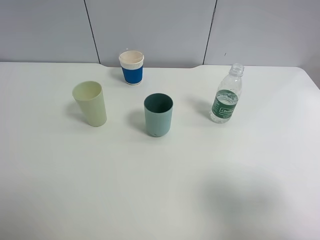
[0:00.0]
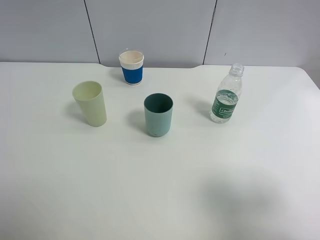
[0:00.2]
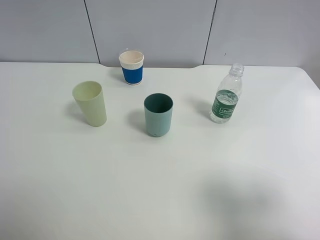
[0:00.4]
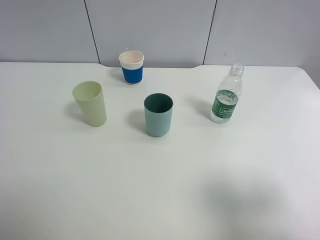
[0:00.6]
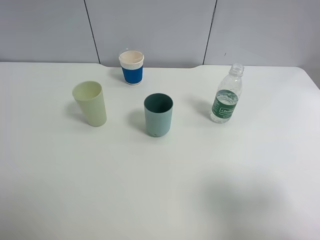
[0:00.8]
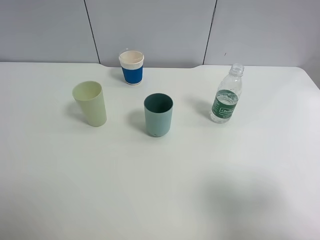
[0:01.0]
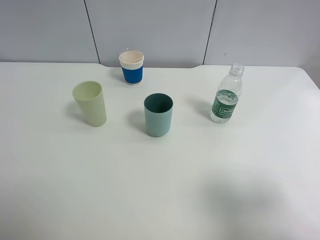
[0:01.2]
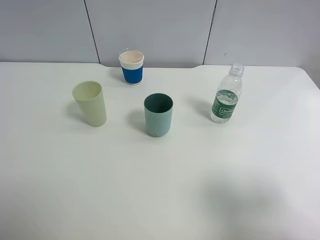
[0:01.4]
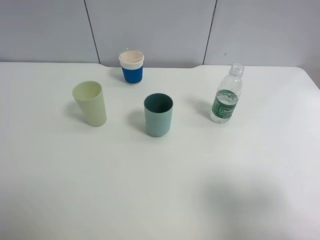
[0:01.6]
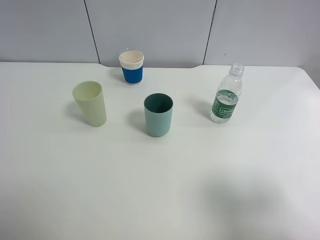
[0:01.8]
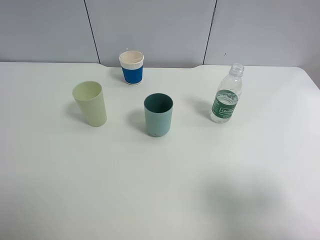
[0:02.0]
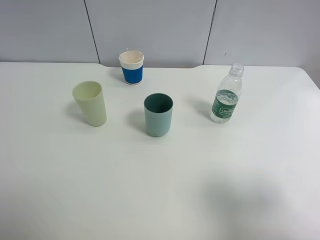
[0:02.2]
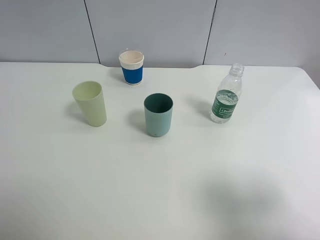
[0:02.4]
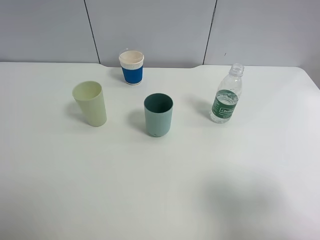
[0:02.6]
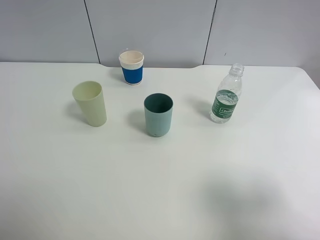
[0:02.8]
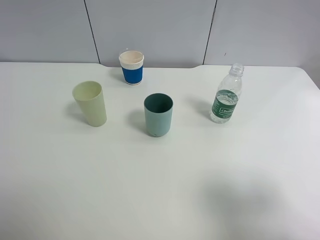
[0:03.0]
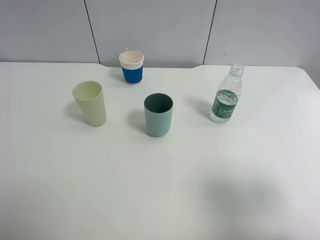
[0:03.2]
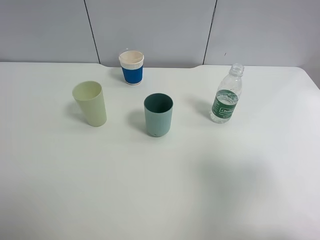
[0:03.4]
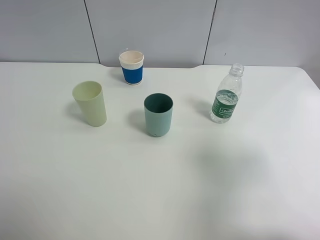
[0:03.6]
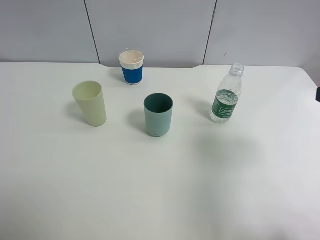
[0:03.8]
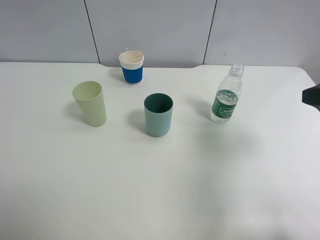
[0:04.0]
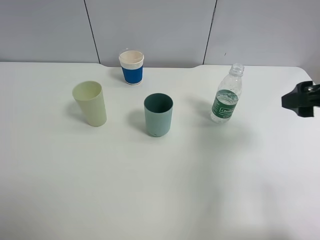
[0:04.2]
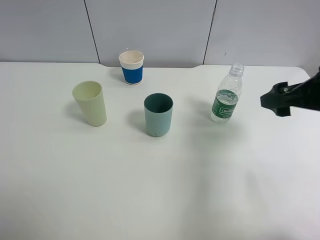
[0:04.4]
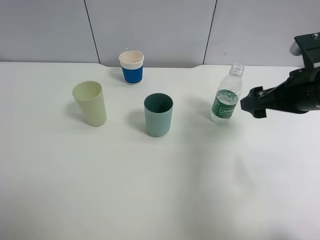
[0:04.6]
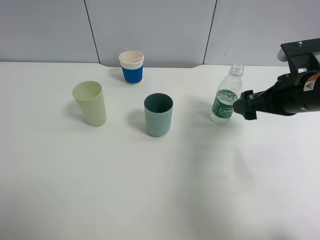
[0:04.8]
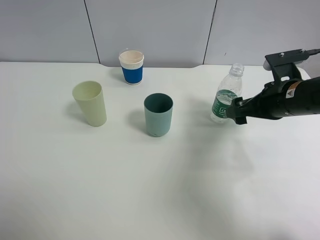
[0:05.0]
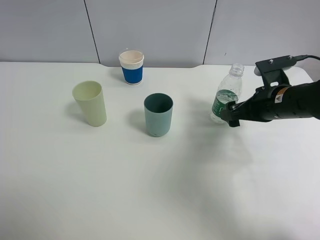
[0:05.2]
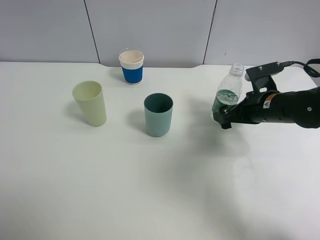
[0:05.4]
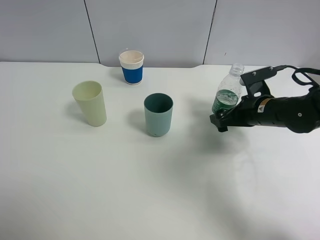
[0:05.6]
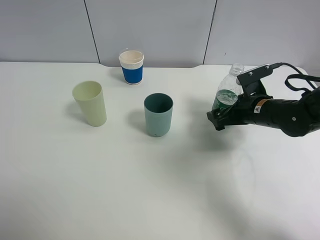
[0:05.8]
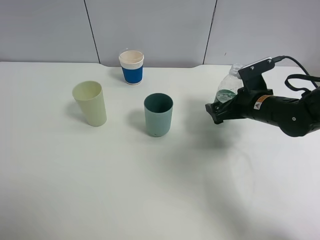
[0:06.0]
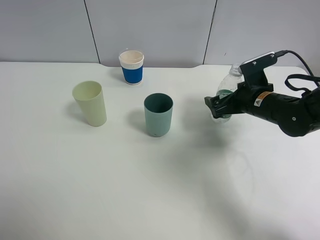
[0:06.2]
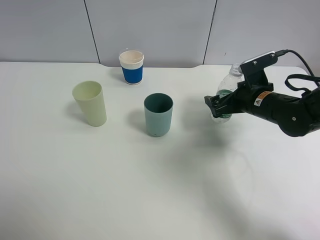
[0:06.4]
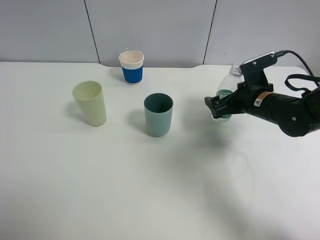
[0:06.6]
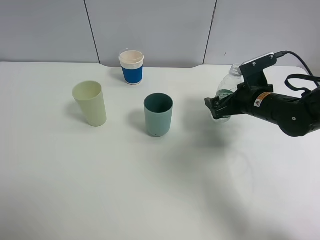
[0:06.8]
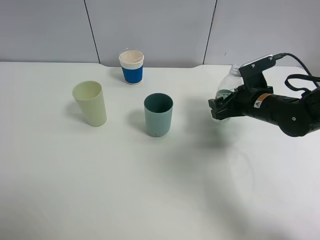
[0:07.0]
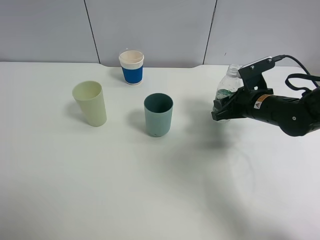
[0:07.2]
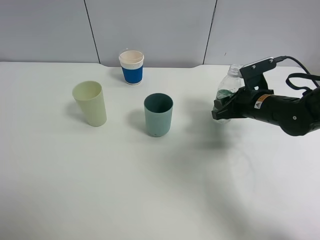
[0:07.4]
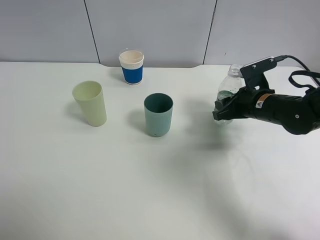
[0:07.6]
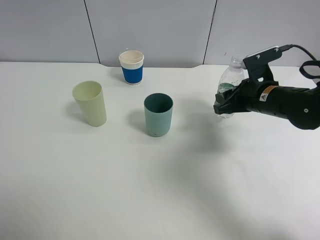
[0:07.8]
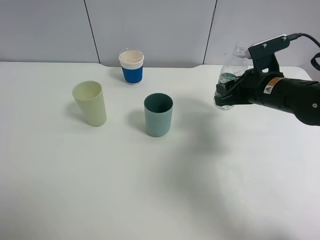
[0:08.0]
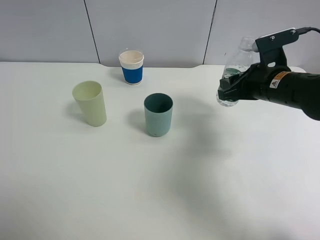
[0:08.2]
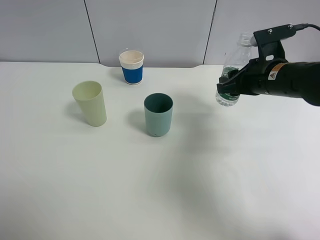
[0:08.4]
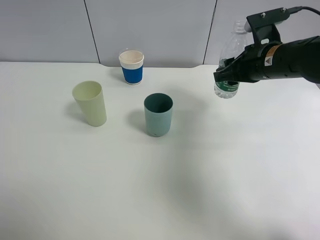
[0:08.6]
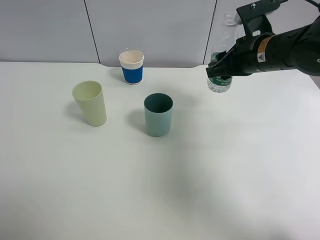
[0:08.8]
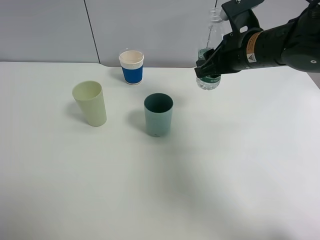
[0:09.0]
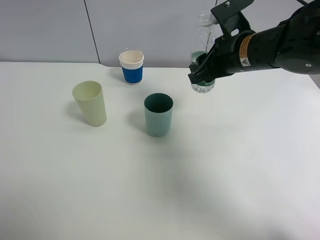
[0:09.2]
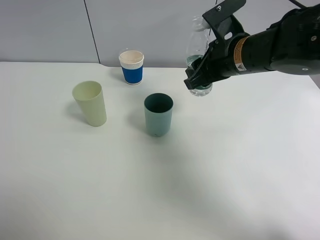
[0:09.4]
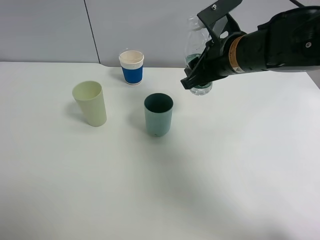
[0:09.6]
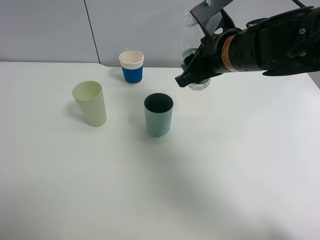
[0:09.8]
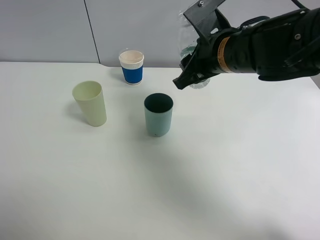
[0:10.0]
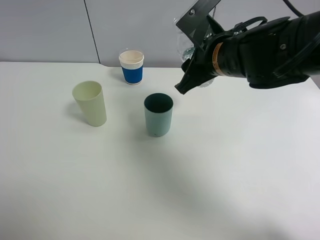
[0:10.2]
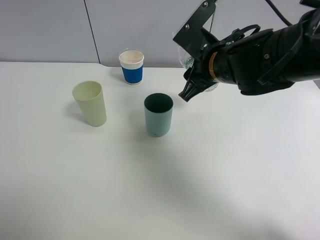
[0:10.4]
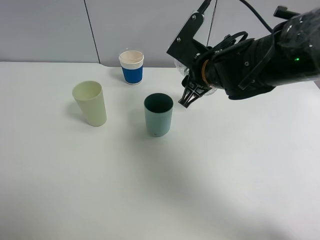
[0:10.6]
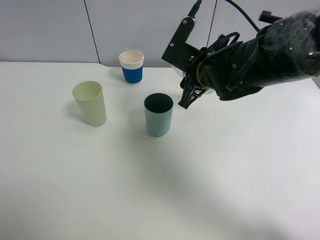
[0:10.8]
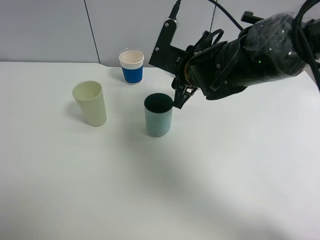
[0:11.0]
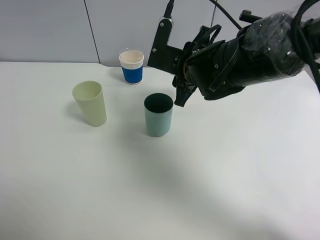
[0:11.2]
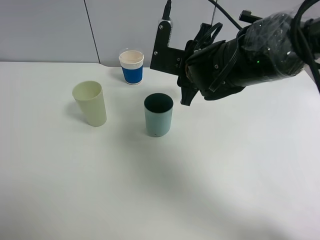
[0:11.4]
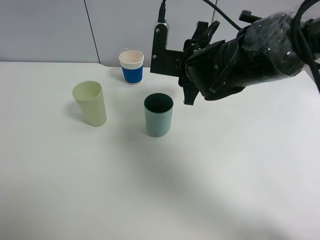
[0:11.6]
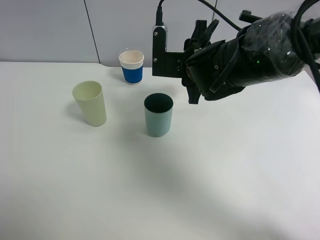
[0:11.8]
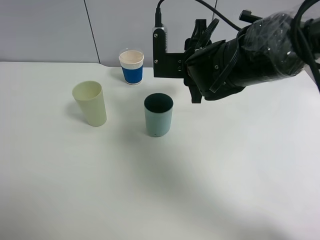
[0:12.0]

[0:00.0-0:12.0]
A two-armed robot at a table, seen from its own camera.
Task of the whole recording: use a clamp to hold the bottle of the drink, pour the beverage into a random cup, then clamp the cup containing the drink and pour the drink into another random cup.
Step, 0:00.0 to 0:08.2: Pick up the water bottle with right gripper.
0:00.0 to 0:03.0: Both grippers stay put.
0:03.0 to 0:04.4: The right gripper travels forward by about 20 cm.
0:04.4 to 0:06.0: The right gripper is displaced downward and forward by about 15 cm.
0:06.0 to 0:07.6: The right gripper closes up.
0:07.6 to 0:09.0: The right gripper shifts roughly 15 cm upward and to the left.
0:09.0 to 0:10.4: The right gripper heads to the left, covering approximately 5 cm.

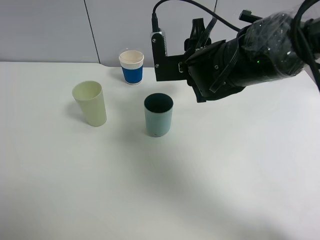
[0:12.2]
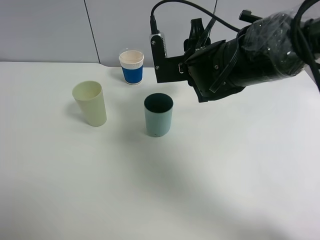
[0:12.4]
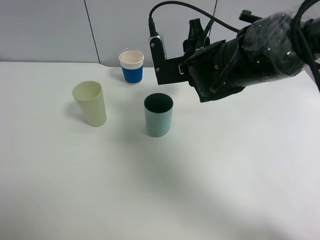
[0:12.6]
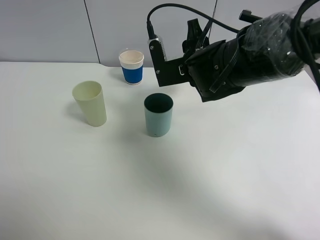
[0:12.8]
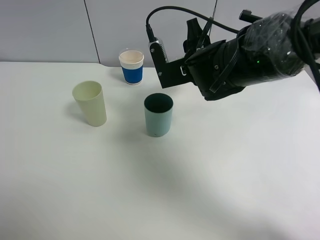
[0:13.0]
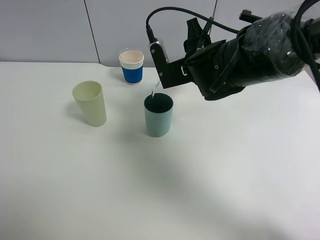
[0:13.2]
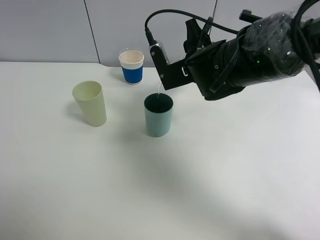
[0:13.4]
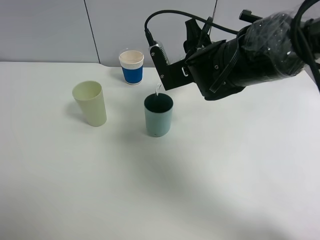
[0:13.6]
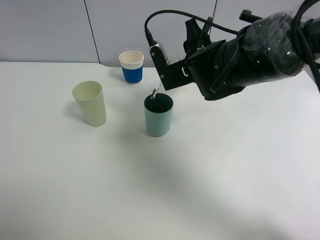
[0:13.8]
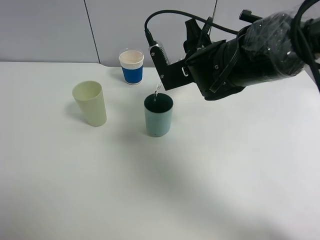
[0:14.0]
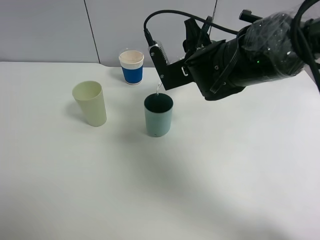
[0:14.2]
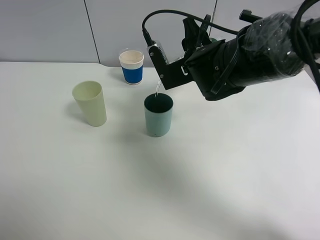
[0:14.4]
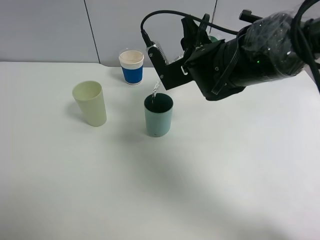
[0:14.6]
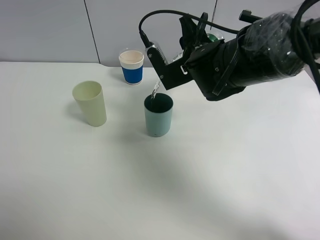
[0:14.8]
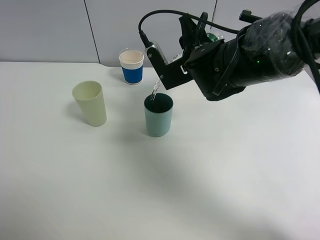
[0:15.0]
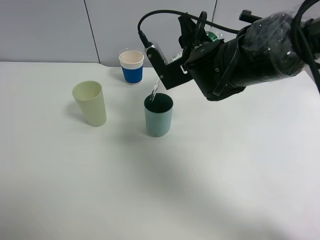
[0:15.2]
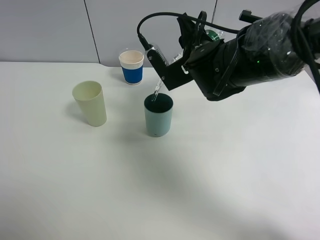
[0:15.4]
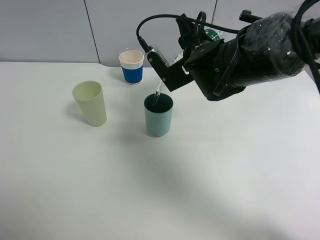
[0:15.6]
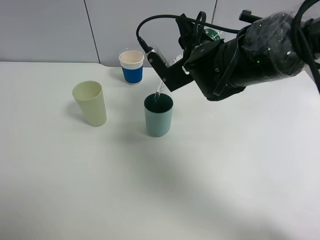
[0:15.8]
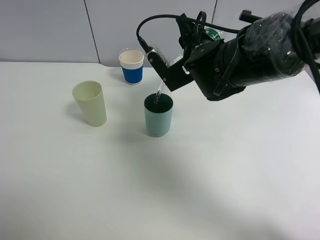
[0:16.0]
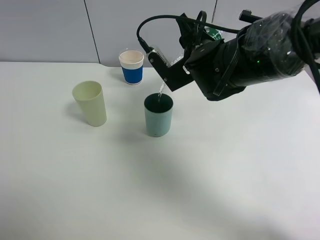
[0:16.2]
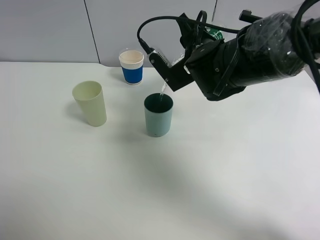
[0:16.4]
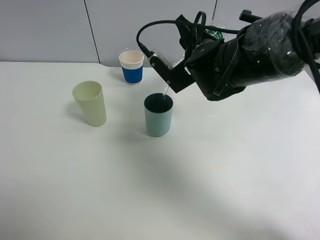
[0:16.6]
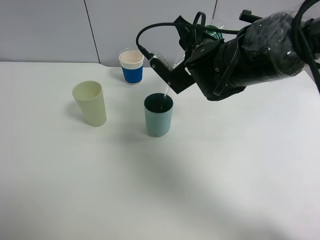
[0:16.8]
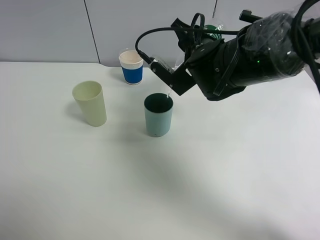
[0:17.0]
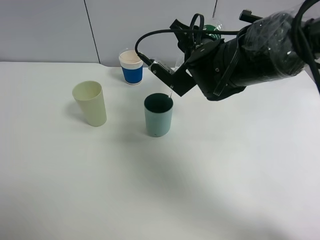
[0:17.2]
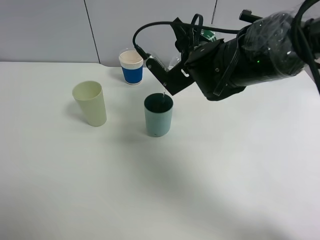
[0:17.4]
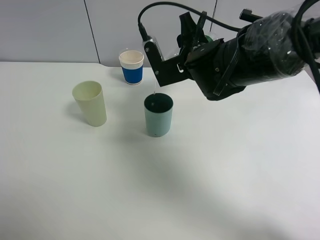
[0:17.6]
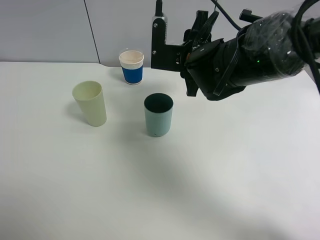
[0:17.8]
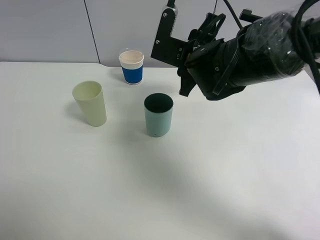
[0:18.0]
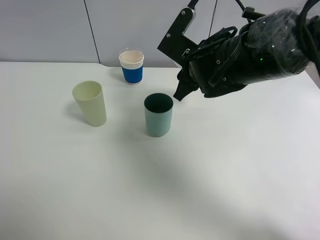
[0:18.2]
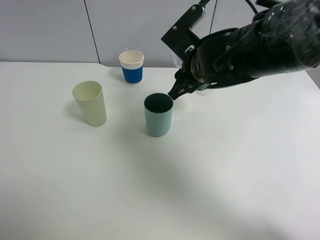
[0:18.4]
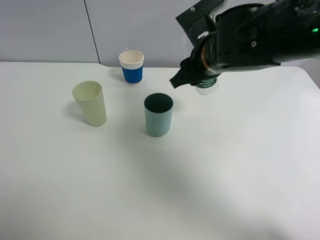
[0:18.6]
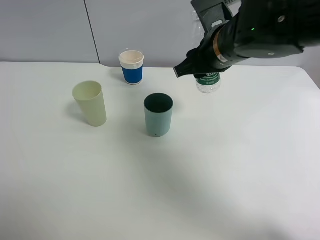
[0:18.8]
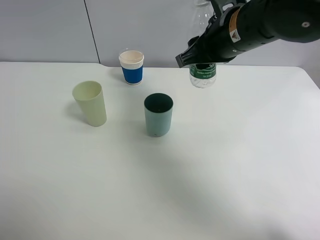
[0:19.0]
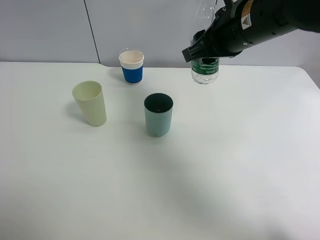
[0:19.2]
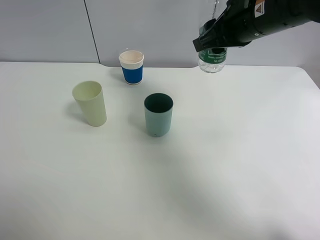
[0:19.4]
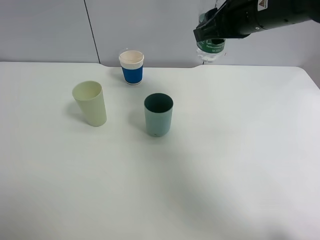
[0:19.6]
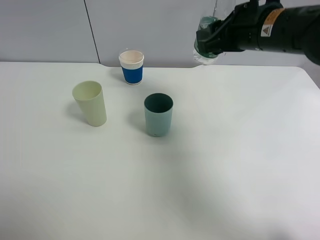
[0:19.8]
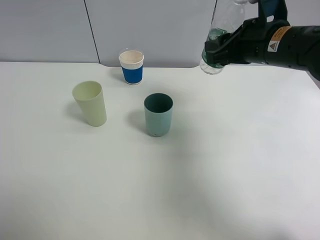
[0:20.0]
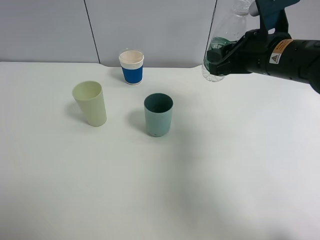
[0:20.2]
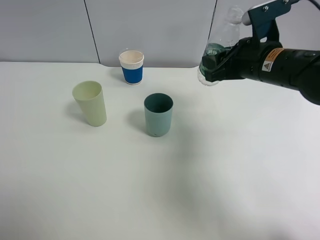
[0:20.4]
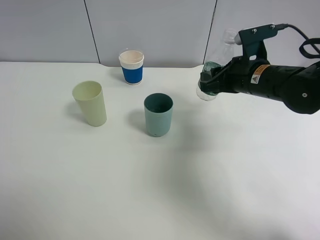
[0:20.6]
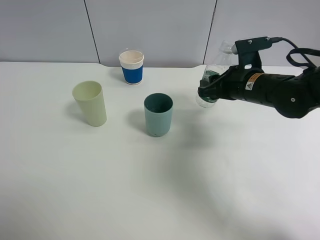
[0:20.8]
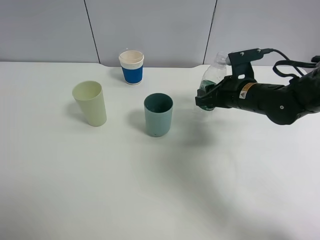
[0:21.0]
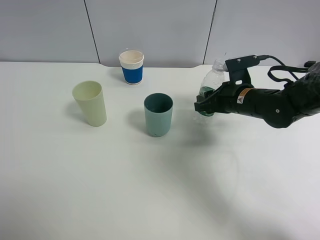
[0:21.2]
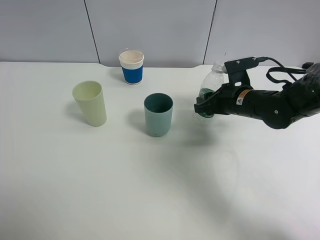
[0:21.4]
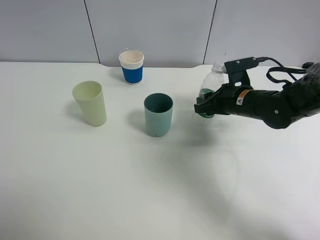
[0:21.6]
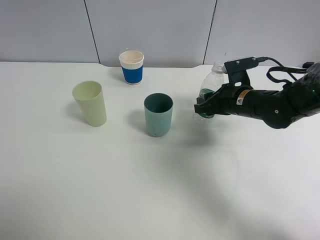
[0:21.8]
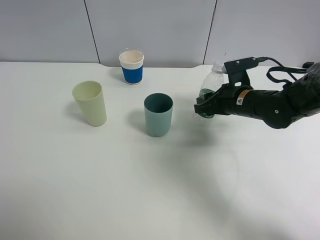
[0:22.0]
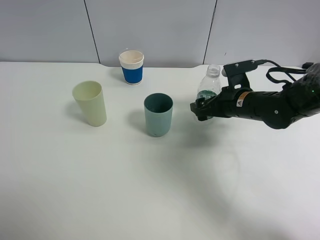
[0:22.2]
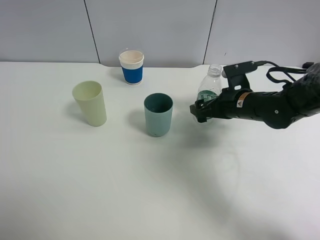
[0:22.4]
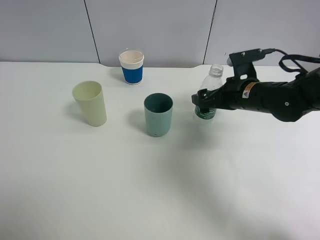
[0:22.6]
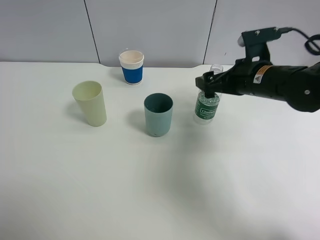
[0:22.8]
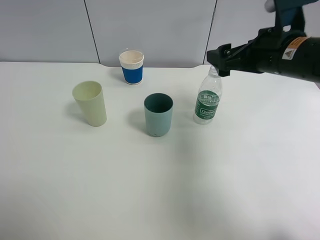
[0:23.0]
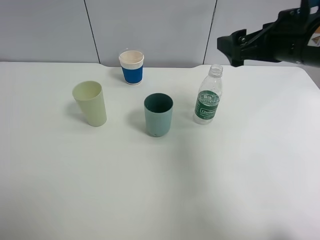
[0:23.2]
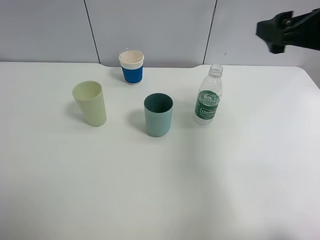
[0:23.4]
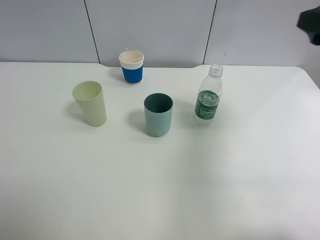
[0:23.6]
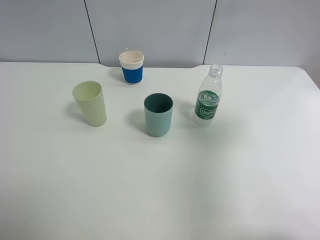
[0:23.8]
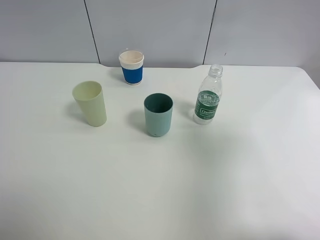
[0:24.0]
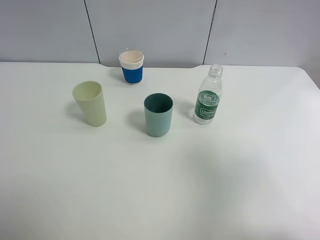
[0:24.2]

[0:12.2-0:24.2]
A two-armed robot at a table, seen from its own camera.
Task of the whole recording: use a clamp to hold the bottle of the drink, pour the beverage into a random cup, then clamp the cup containing the drink and pour the drink into another random cup.
Step, 0:12.2 to 0:17.8: Pour water into the blue plastic cup with right gripper.
Step, 0:18.0 to 0:22.8: Place the water bottle on the table with right gripper.
0:12.2 to 0:13.8: The grippers make only small movements.
0:13.8 to 0:15.2: The grippers make only small movements.
0:15.2 to 0:16.6: The grippers stay close to where they were, moving slightly.
0:18.2 to 0:19.8: The right gripper travels to the right and upward by approximately 10 cm.
0:19.8 to 0:21.2: The right gripper heads downward, covering approximately 15 cm.
0:21.2 to 0:22.6: The right gripper opens.
0:22.6 to 0:24.2: The right gripper travels backward, upward and to the right by some 35 cm.
